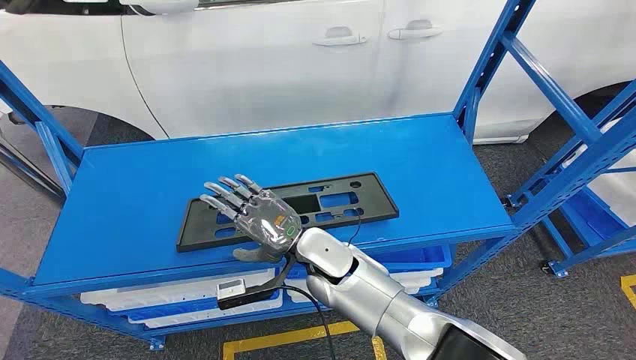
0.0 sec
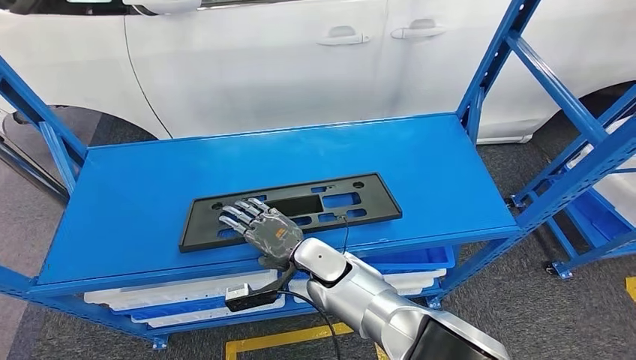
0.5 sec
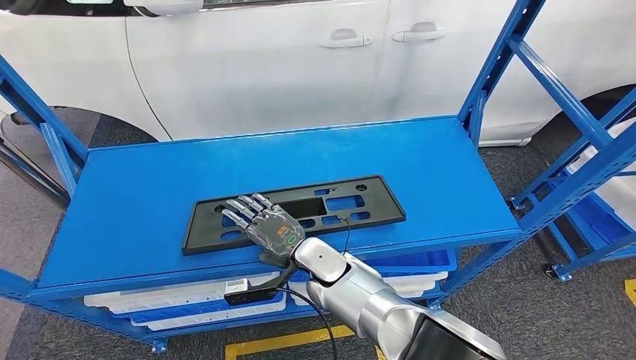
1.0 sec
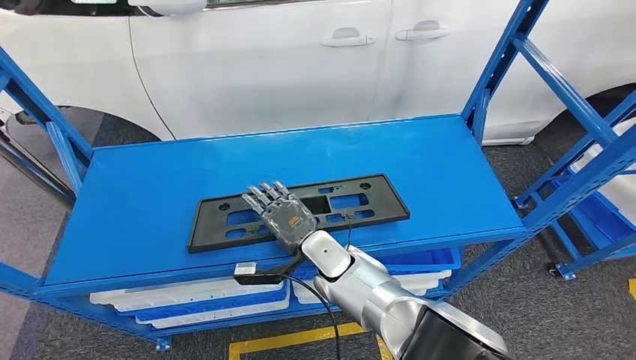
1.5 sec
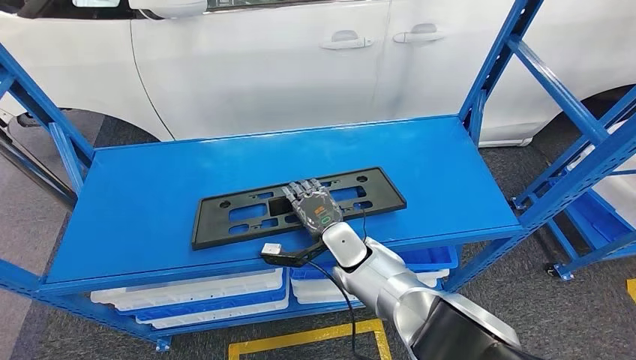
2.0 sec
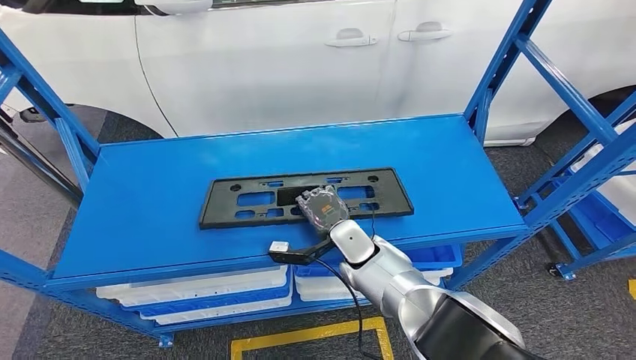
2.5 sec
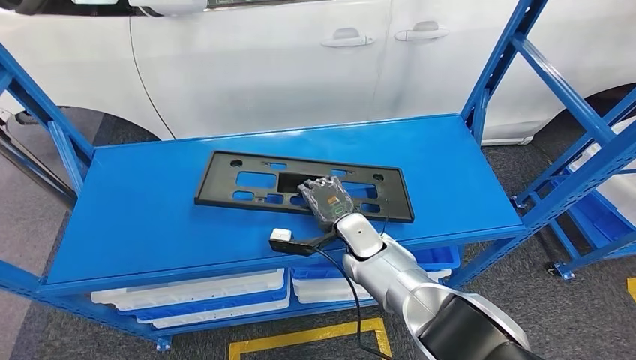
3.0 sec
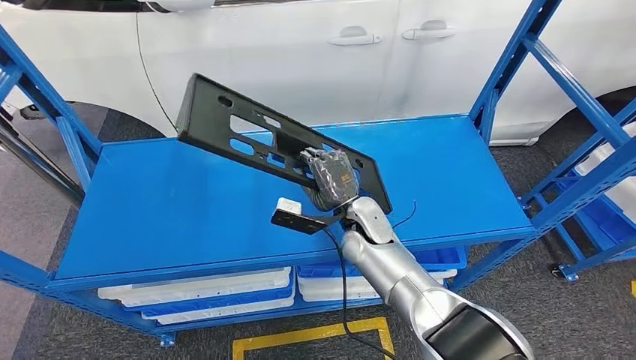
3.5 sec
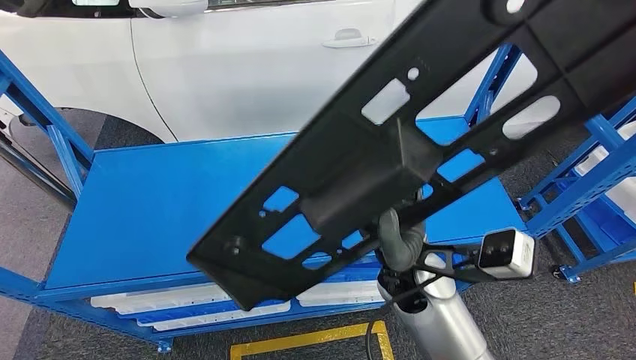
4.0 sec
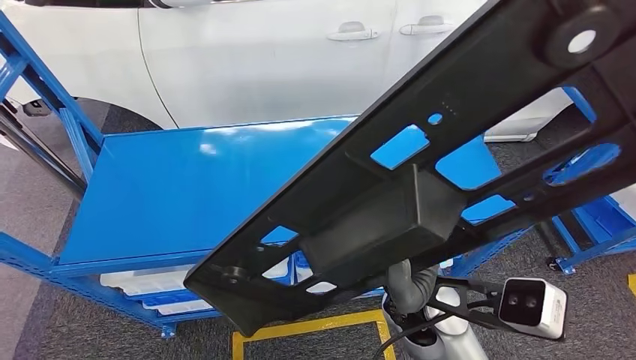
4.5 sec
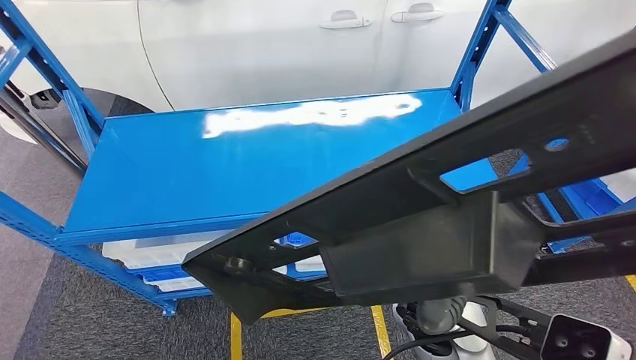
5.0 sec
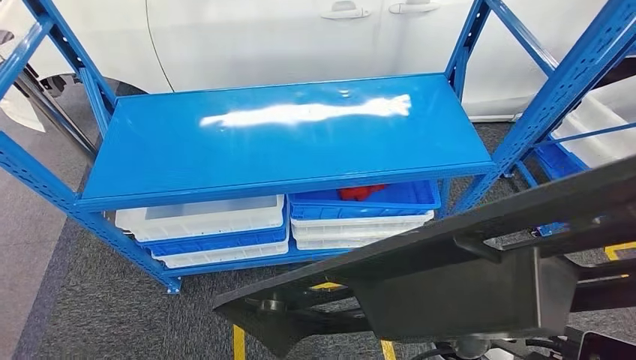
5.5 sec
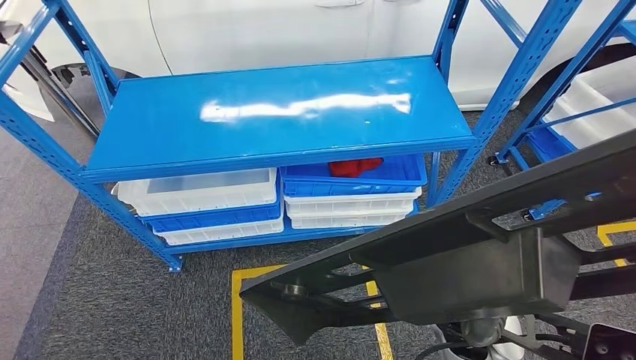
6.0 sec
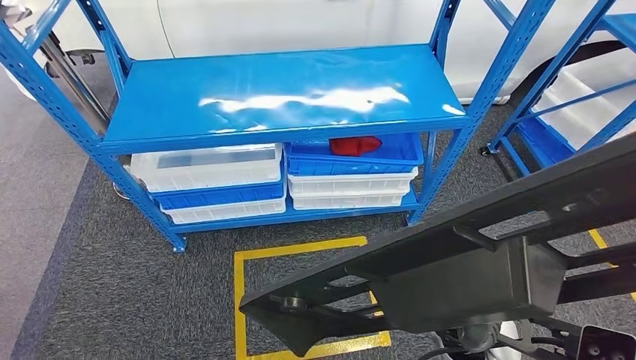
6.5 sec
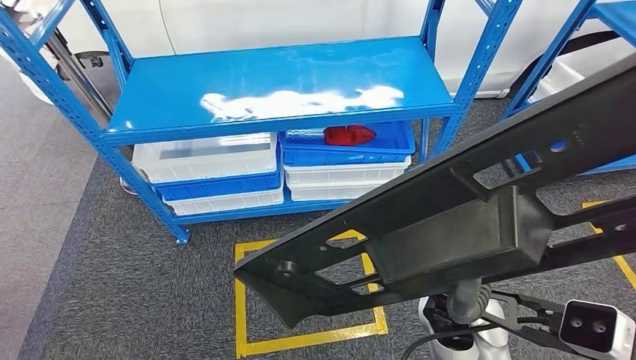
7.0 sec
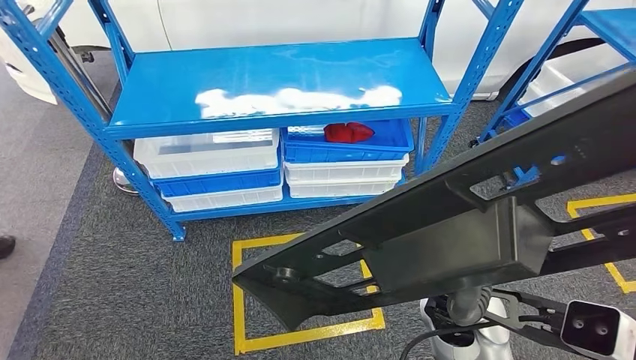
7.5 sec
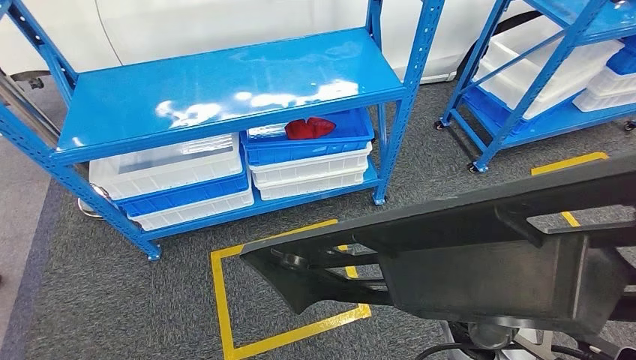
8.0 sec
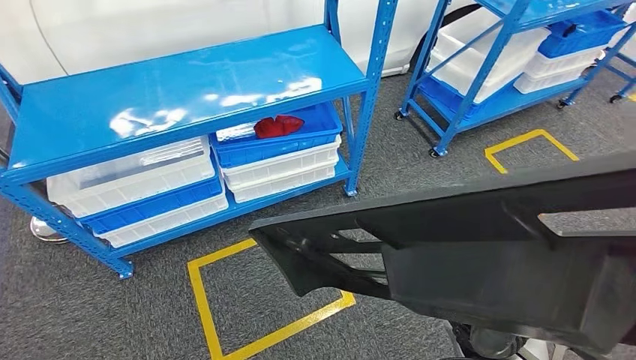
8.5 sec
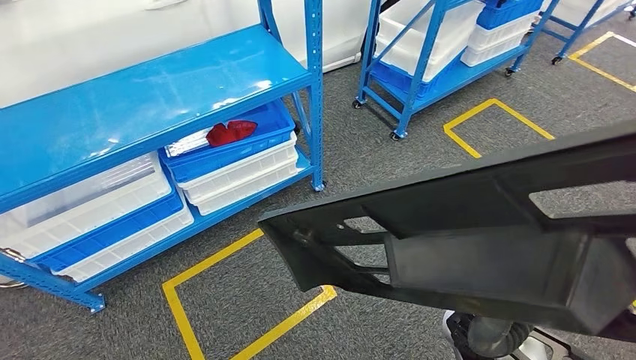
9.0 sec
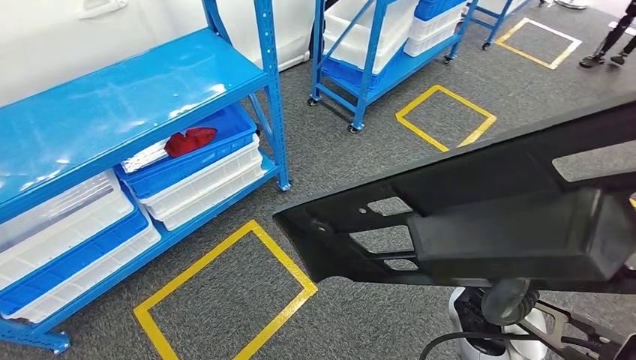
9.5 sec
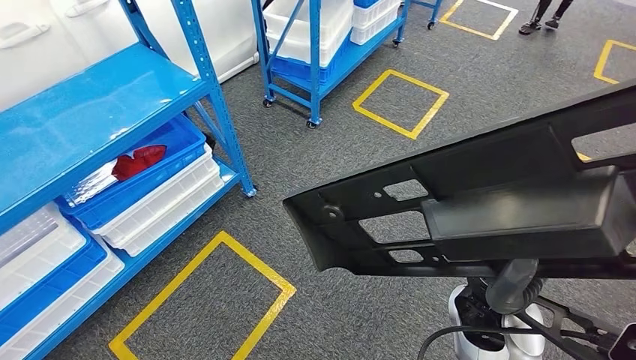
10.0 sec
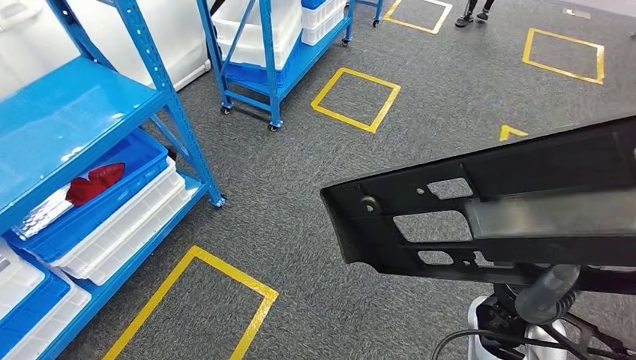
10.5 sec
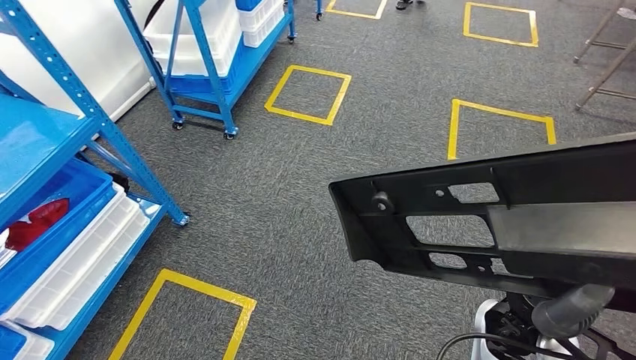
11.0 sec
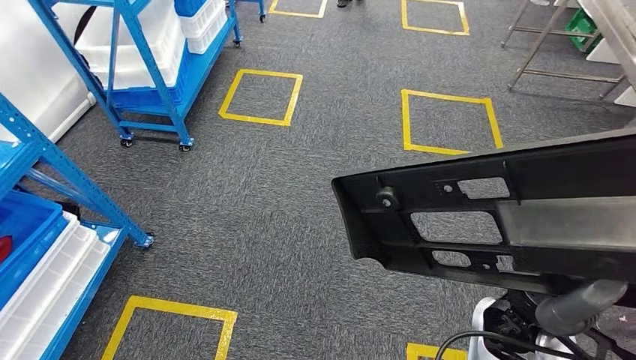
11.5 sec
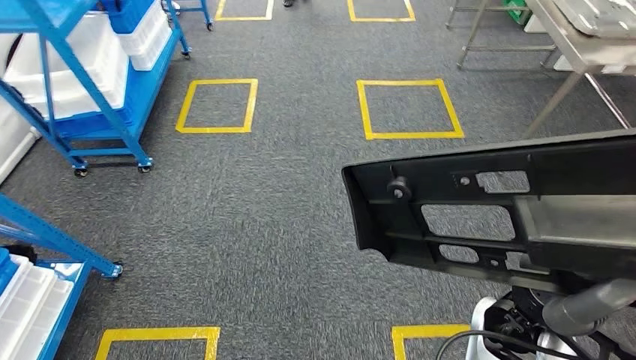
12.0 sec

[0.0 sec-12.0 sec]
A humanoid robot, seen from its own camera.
Step, 0.0 sec to 4.0 sec: Pick up the large parts from the shelf.

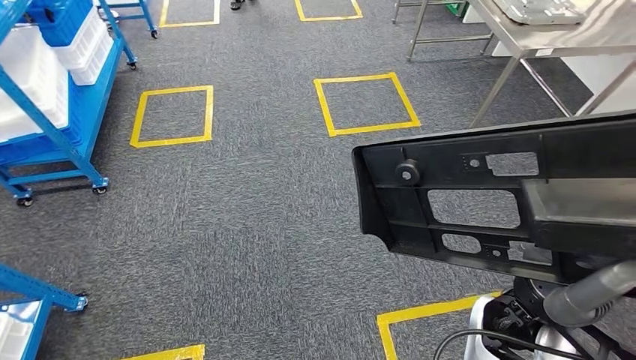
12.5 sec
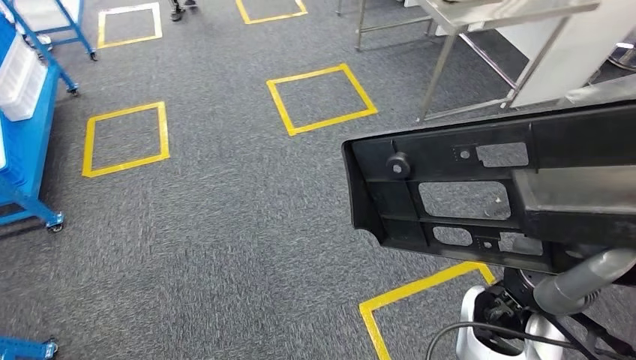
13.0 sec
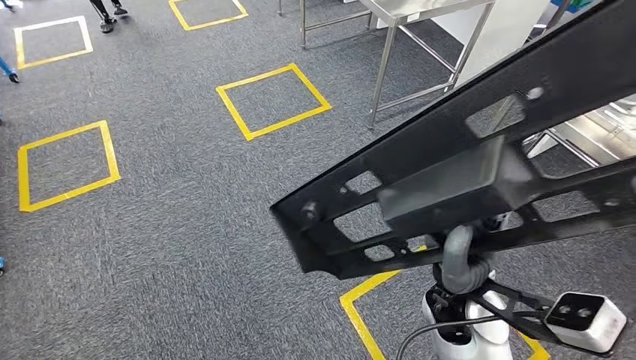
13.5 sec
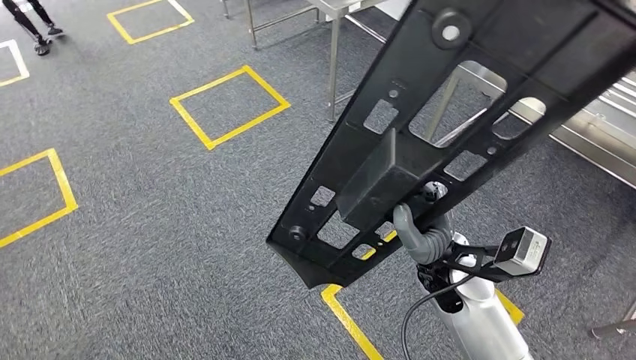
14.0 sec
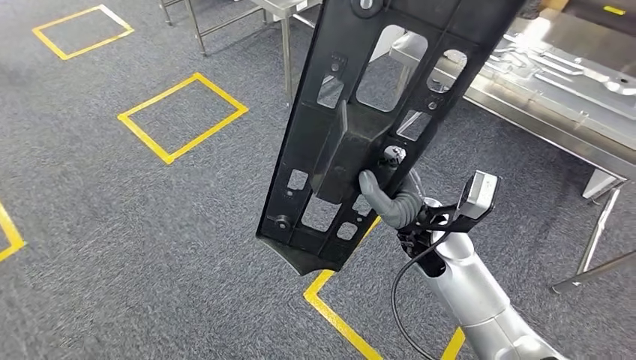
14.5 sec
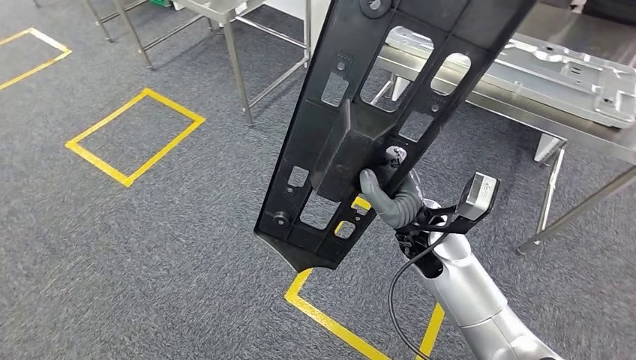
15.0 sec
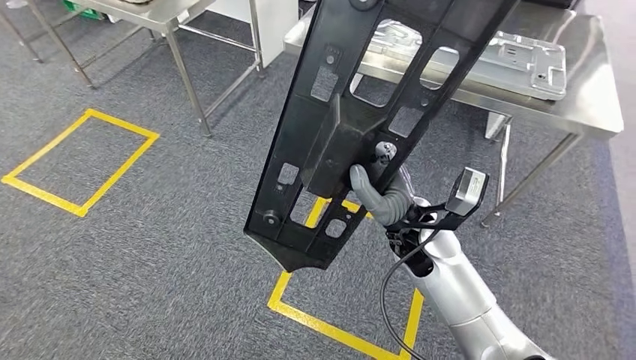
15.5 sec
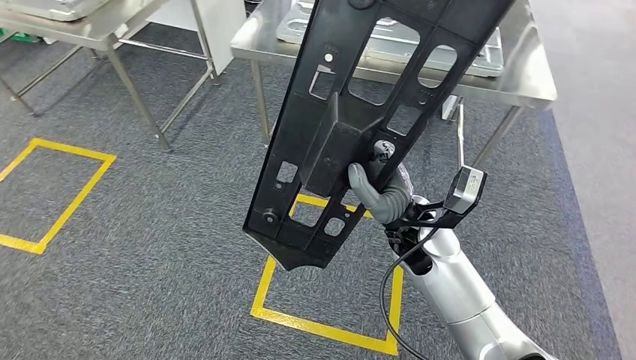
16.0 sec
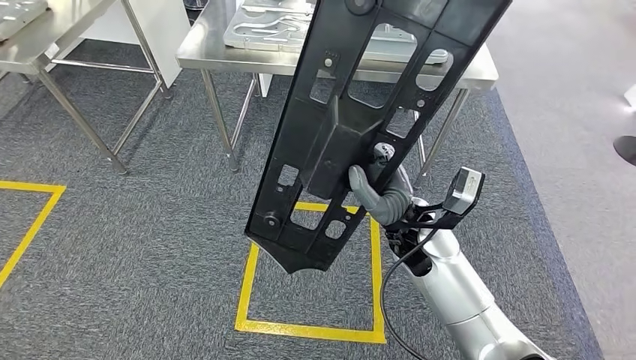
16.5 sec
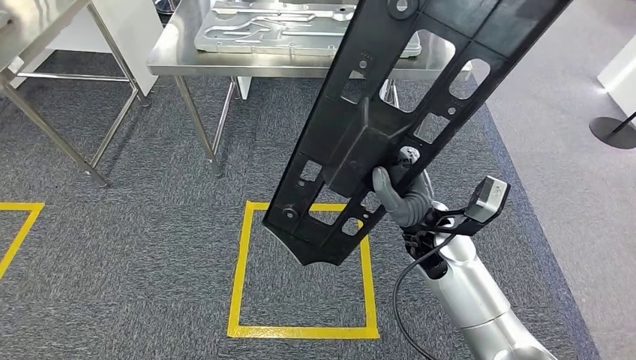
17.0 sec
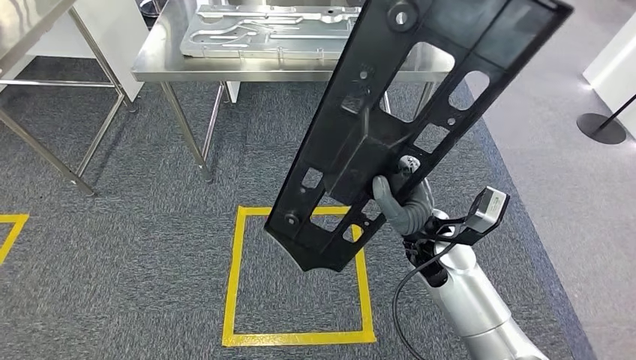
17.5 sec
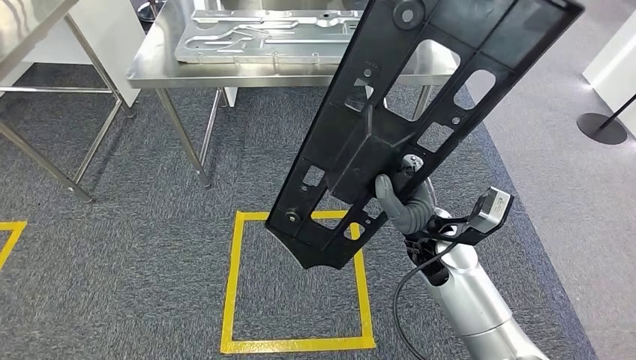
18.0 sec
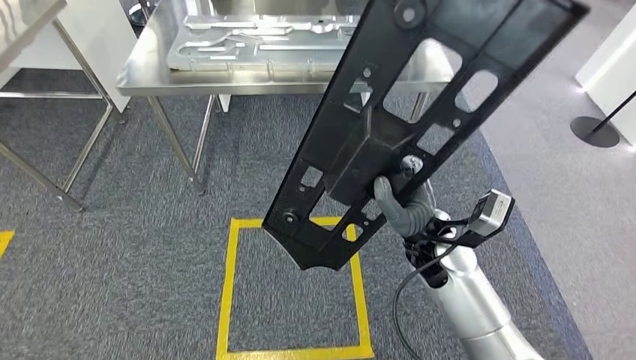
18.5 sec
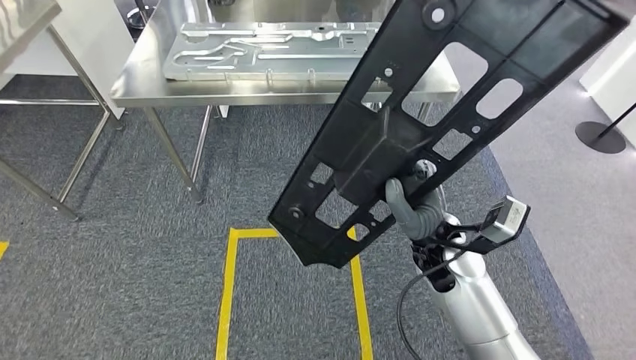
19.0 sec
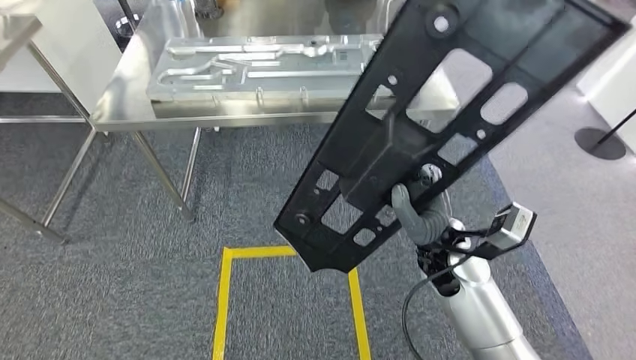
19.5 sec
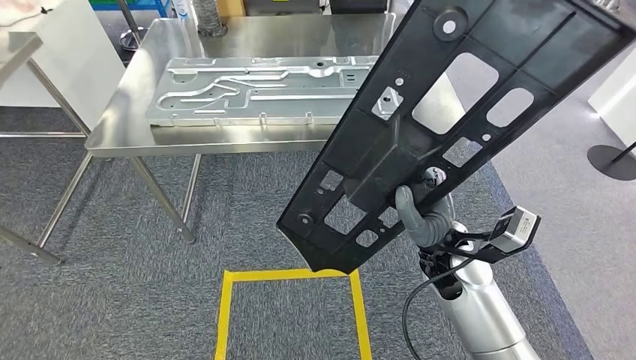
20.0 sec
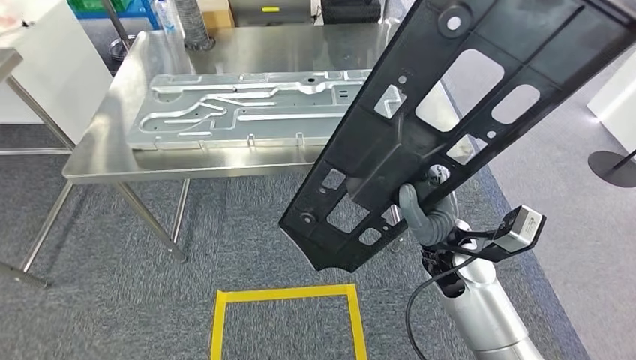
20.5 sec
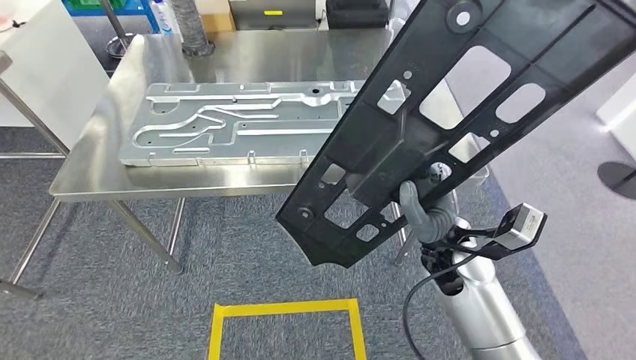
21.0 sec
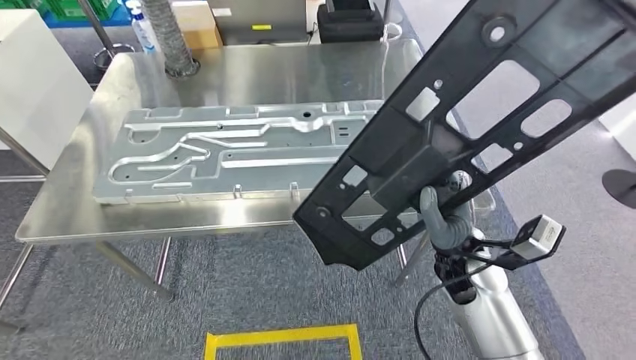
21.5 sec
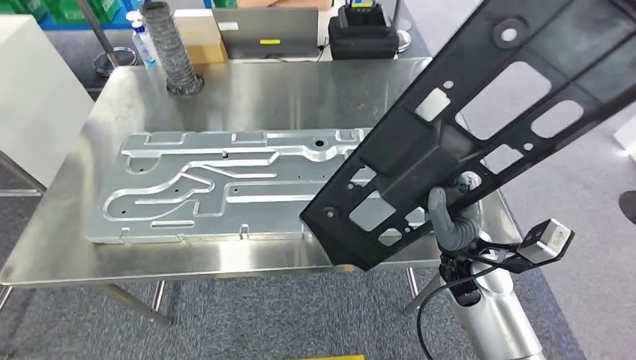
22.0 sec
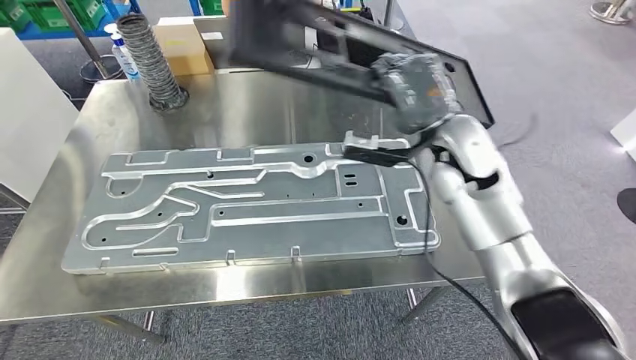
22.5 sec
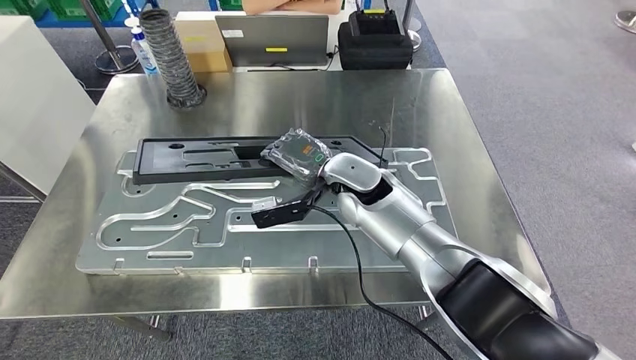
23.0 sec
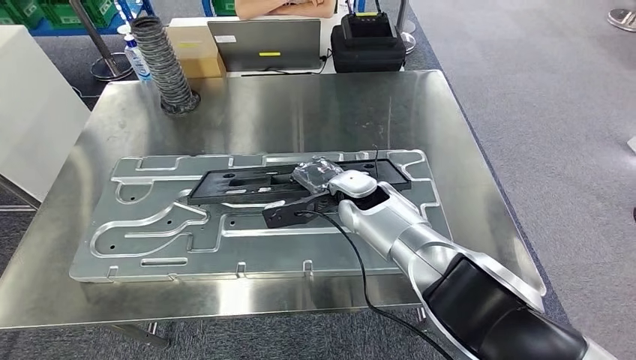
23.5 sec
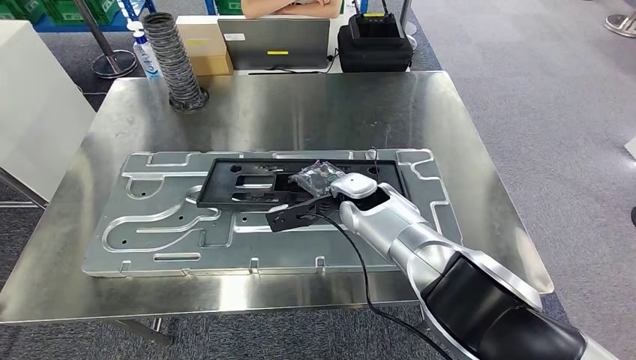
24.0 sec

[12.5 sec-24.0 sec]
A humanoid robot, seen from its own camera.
Step, 12.5 sec to 21.5 sec: Move the large parts to the workbench.
